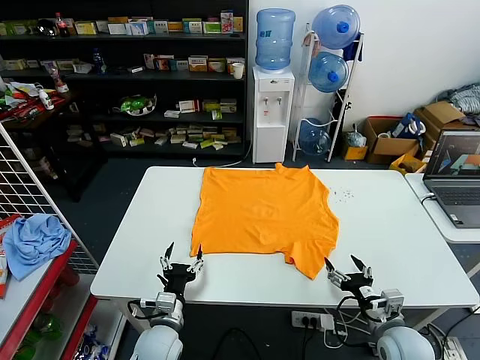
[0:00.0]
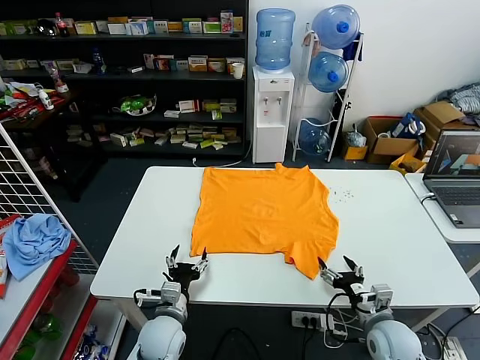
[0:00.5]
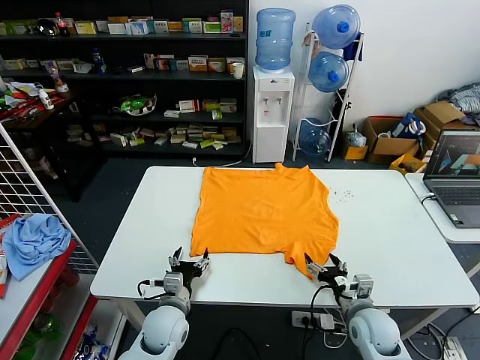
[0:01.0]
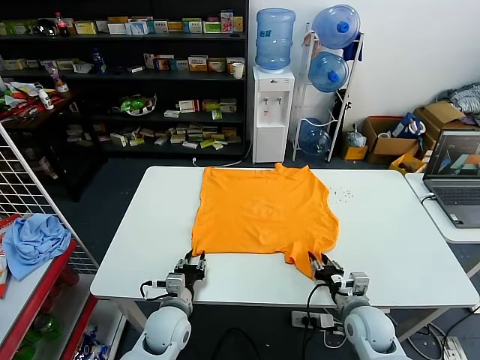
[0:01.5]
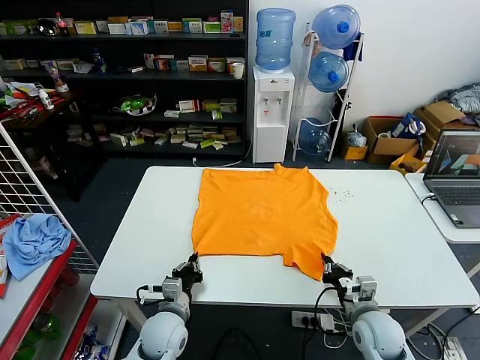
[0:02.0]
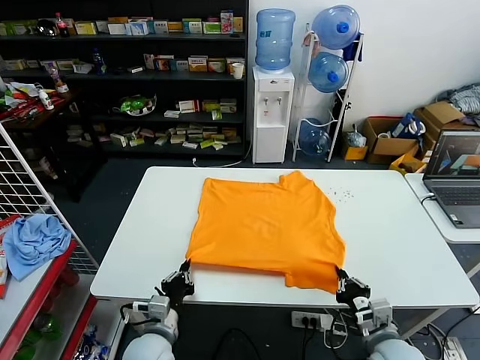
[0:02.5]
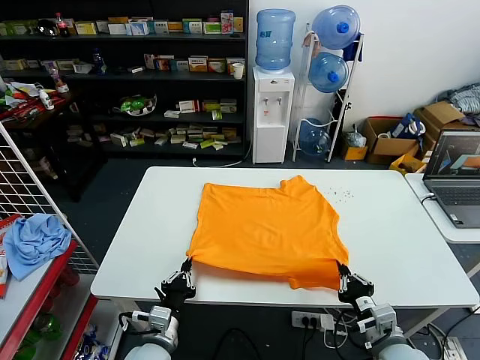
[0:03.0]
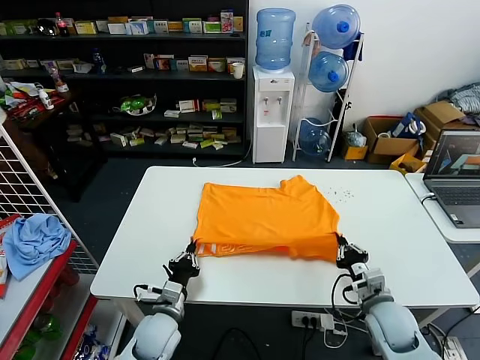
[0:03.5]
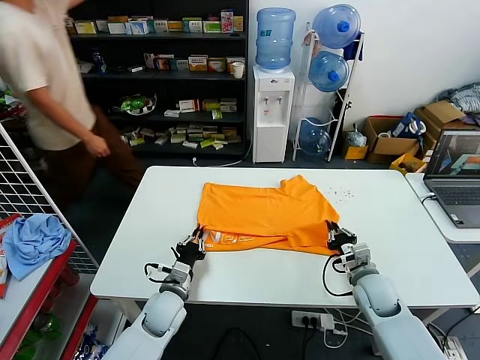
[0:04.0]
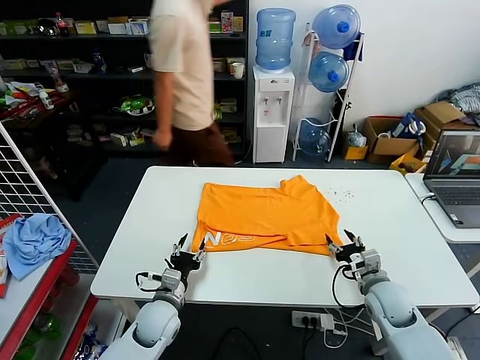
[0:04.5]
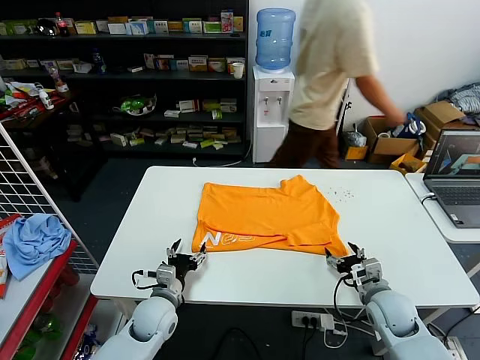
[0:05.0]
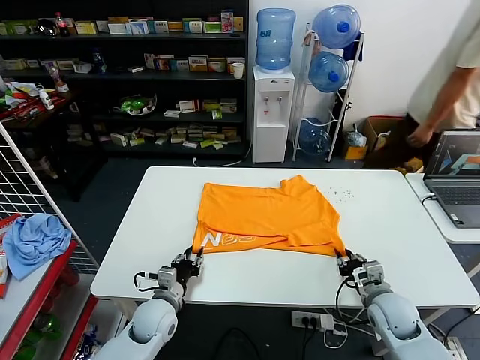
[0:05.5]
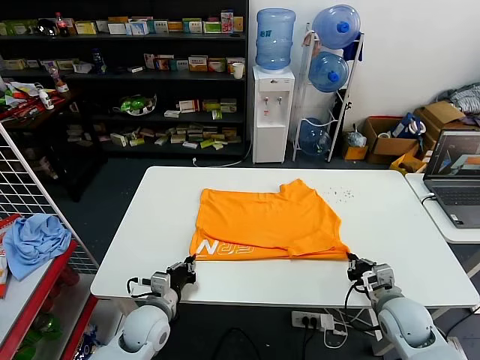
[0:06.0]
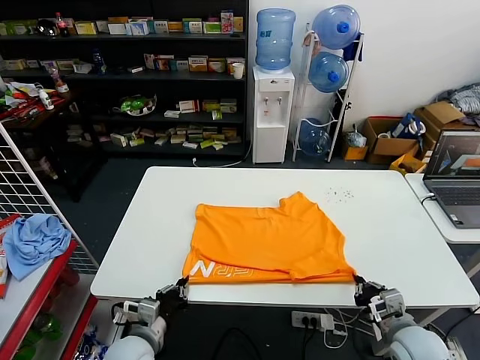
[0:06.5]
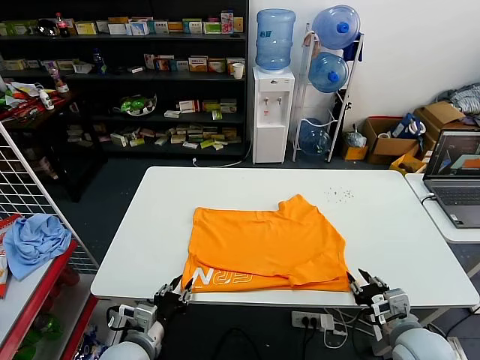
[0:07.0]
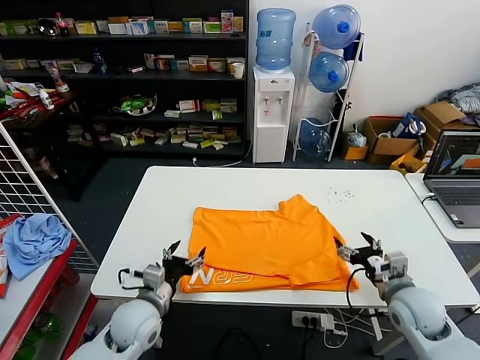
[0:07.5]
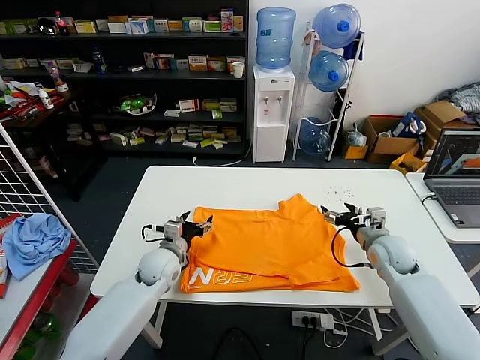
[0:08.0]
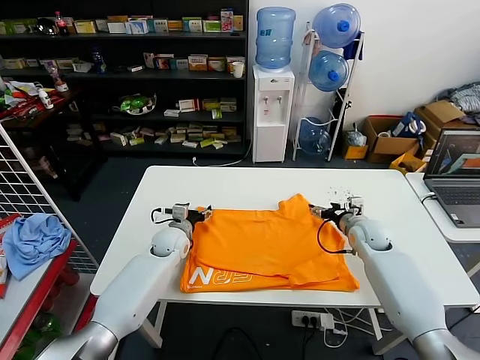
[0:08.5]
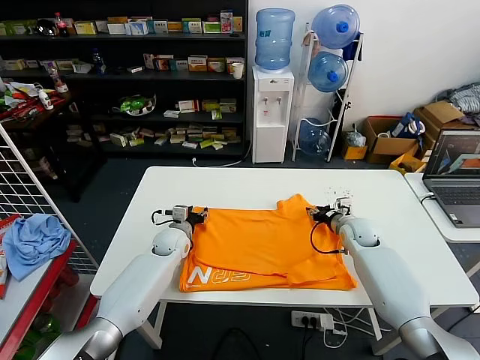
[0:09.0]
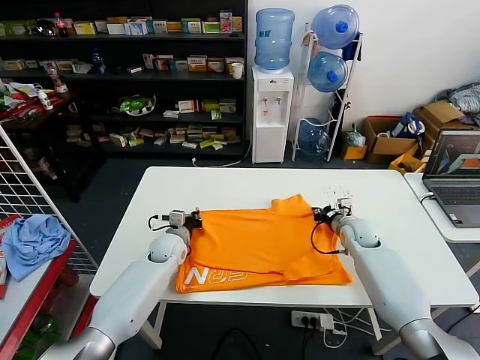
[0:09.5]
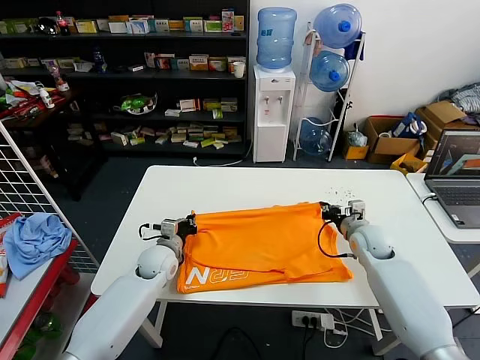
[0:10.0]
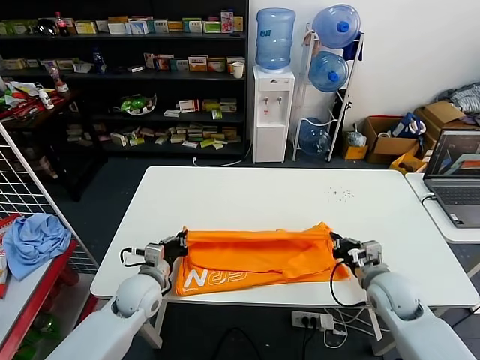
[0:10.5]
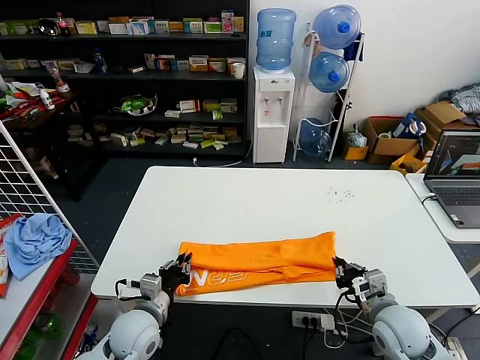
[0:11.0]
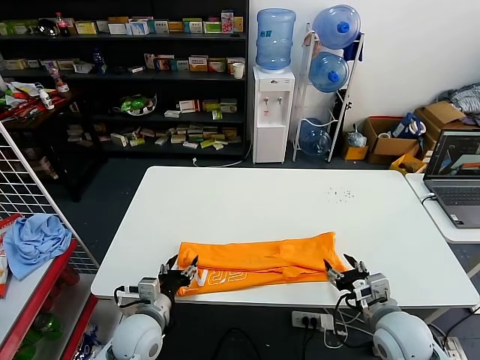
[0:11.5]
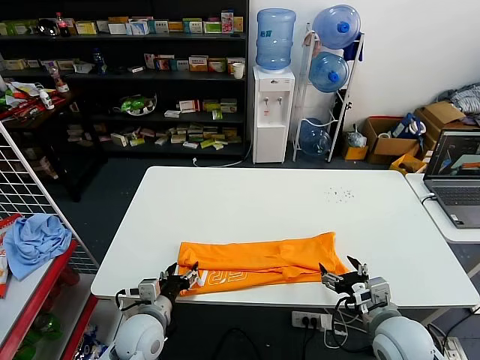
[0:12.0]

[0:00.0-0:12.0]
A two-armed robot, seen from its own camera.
Task of the whole recording: fold and organize the clothes.
Step, 0:00.0 to 0:01.5: use both grippers simultaneously to clamp the lower edge of the clothing fabric.
Step, 0:02.0 to 0:04.0: use both grippers to drag the lower edge of the fabric forward and fold it over the upper edge.
Step, 0:04.5 to 0:07.0: Drag the clothes downward with both gripper.
Step, 0:07.5 to 0:09.0: use both grippers simultaneously to clamp the upper edge of the clothing fabric.
Step, 0:10.0 to 0:11.0: use both grippers to drag the upper edge of the fabric backward and fold it over the lower edge.
0:02.0 to 0:04.0: The left gripper ends up approximately 5 cm from where it was. The right gripper heads forward, covering approximately 10 cm.
0:04.0 to 0:06.0: The right gripper shifts about 5 cm backward, and opens, then closes once more; the left gripper opens and closes again.
0:06.0 to 0:08.0: The two grippers go roughly 15 cm forward. The left gripper opens up; the right gripper opens its fingers.
0:08.0 to 0:10.0: The left gripper closes; the right gripper goes forward and returns, roughly 10 cm each way, and closes.
0:10.0 to 0:12.0: The grippers both shift backward by some 20 cm. The right gripper opens its fingers. Meanwhile the left gripper opens its fingers.

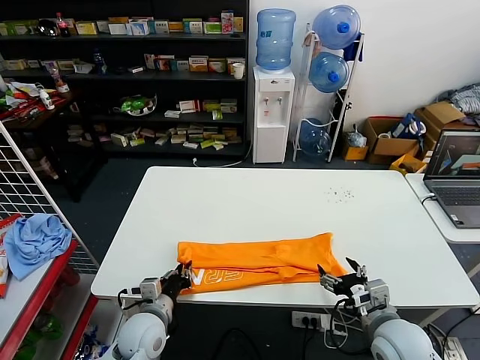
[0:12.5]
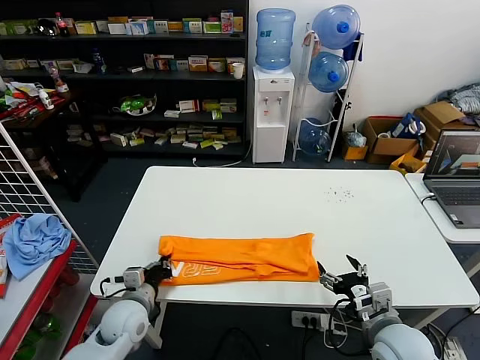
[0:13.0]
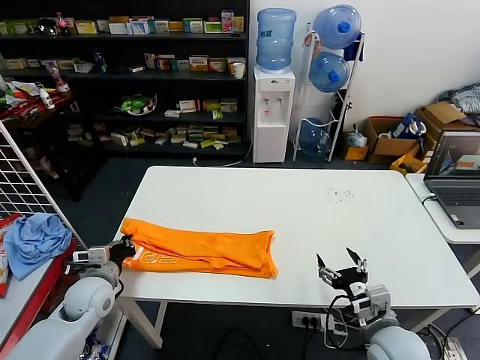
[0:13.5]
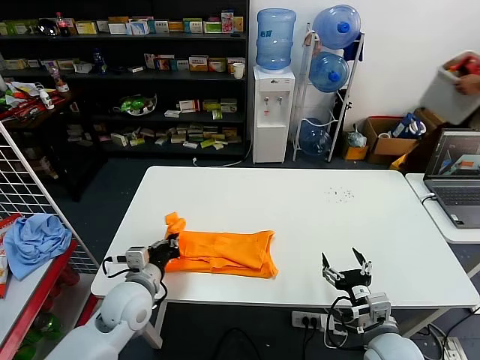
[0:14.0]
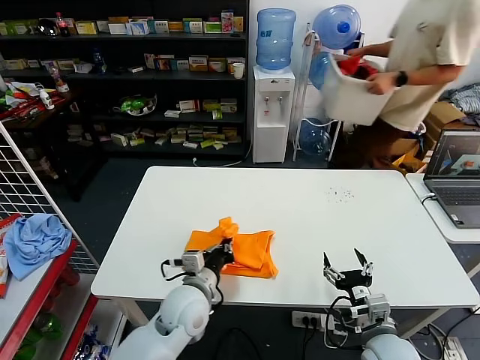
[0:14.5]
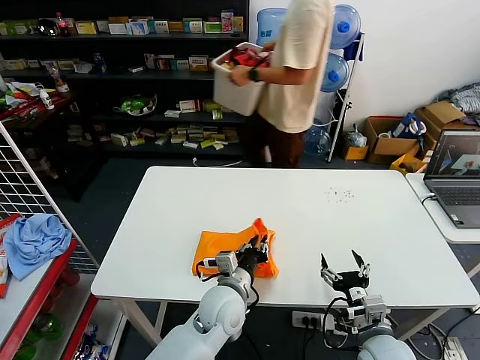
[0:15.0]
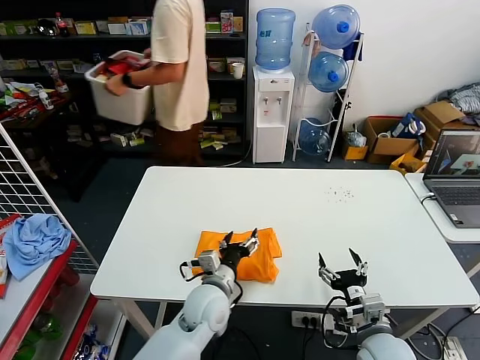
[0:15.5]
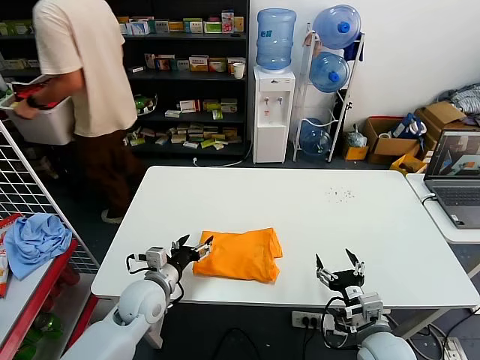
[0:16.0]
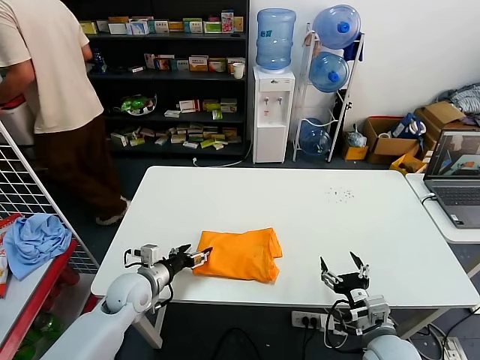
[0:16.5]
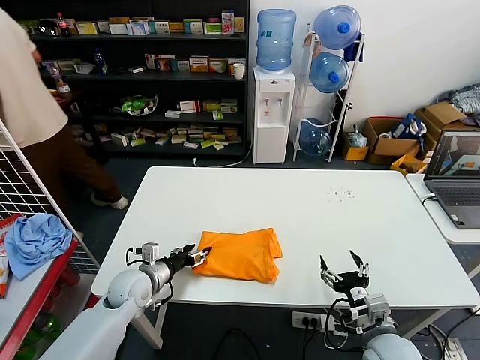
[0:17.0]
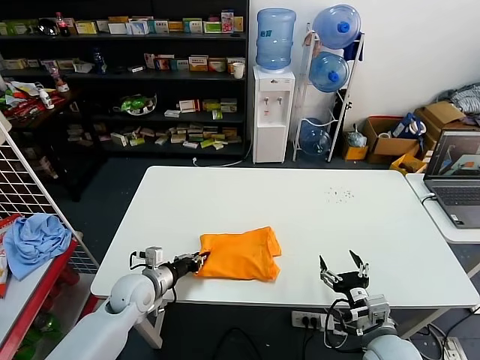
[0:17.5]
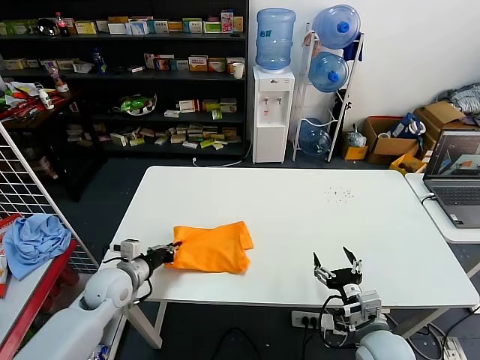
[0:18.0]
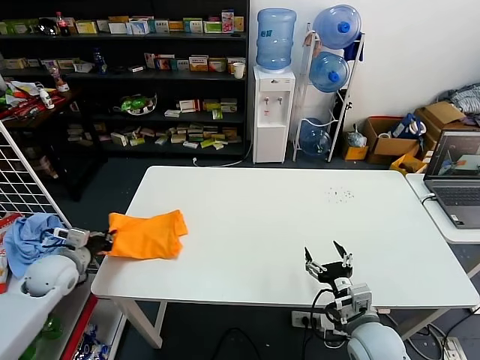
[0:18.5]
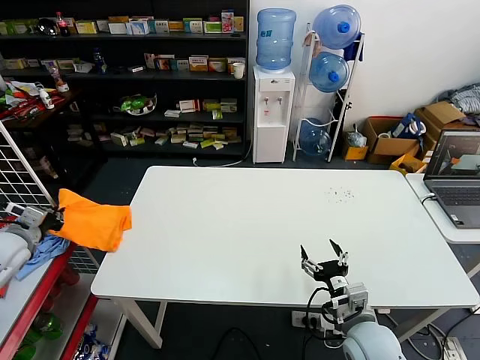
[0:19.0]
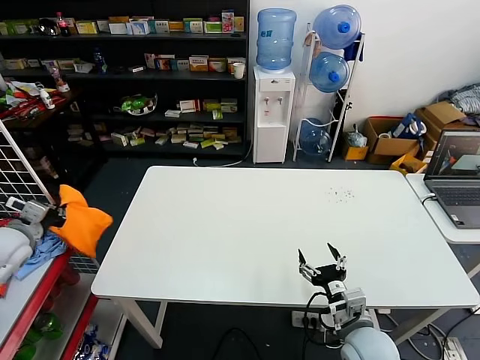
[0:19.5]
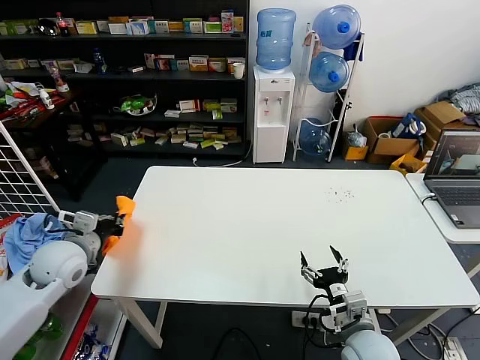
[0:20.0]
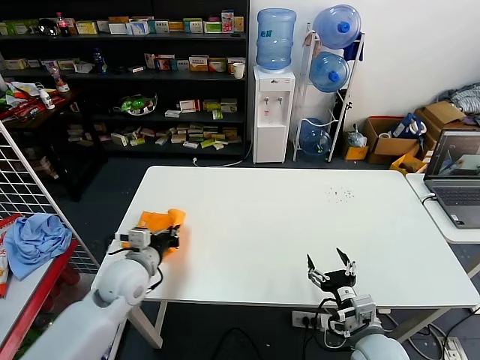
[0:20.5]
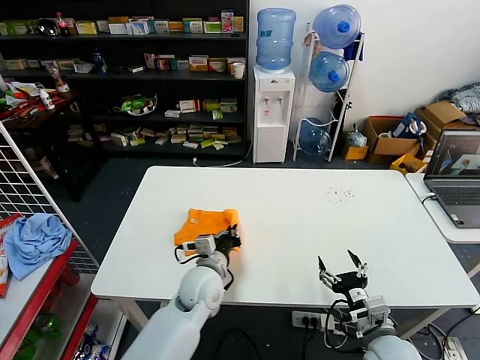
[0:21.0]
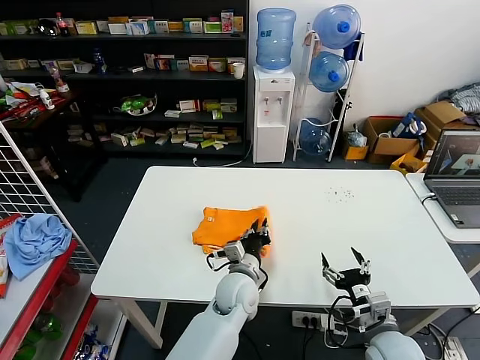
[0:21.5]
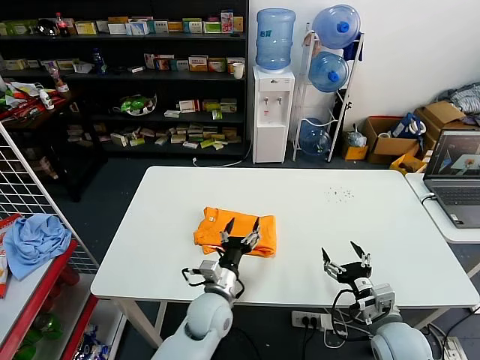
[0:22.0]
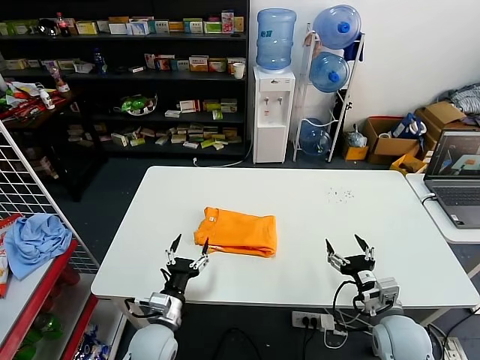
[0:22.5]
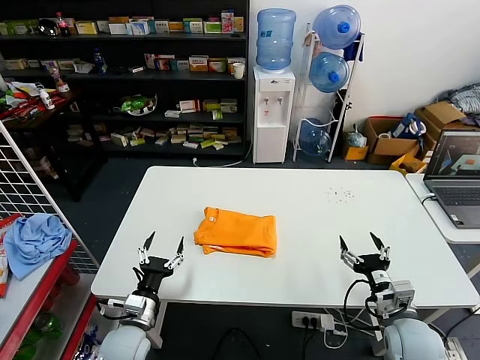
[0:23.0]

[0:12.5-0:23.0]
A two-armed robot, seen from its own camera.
Task of the whole recording: fold and organize the clothes.
Step, 0:13.0 to 0:15.0: use the left gripper to drag the left edge of the fabric to the left and folds it over the right edge.
Step, 0:15.5 to 0:21.5: Flip the folded clothes over with left gripper.
0:12.5 to 0:14.5: The left gripper is displaced to the right and upward by some 10 cm.
0:14.5 to 0:16.5: The left gripper goes some 15 cm to the left, and opens its fingers.
0:16.5 to 0:19.0: The left gripper shifts approximately 30 cm to the left and upward, and closes up.
0:19.0 to 0:21.0: The left gripper heads to the right, covering approximately 40 cm.
0:21.0 to 0:23.0: The left gripper is displaced to the left, backward and downward by approximately 20 cm, and opens up. Meanwhile the right gripper changes place by about 5 cm.

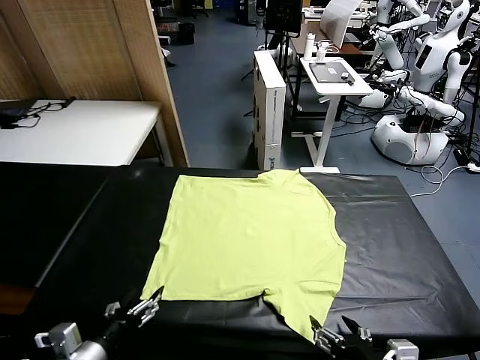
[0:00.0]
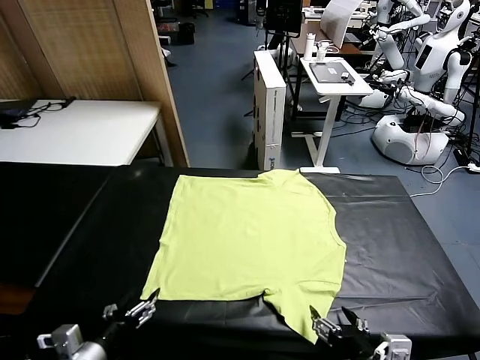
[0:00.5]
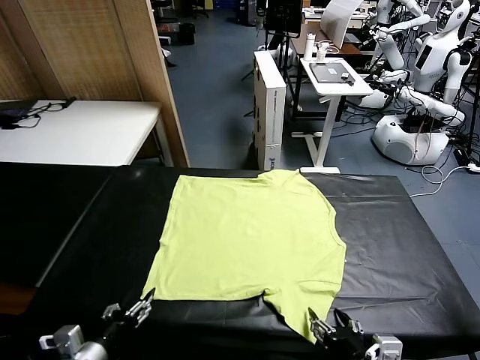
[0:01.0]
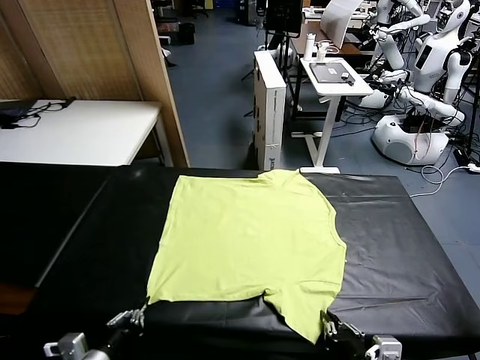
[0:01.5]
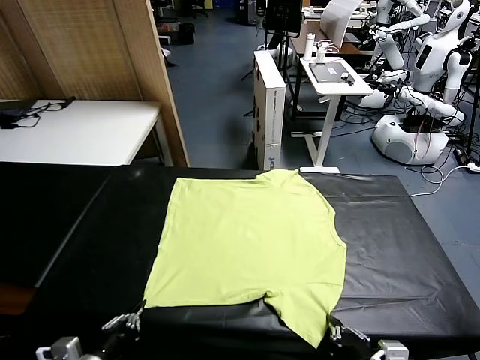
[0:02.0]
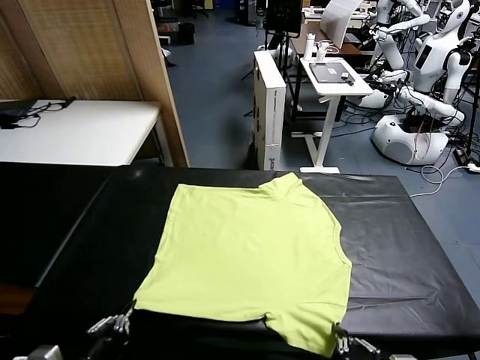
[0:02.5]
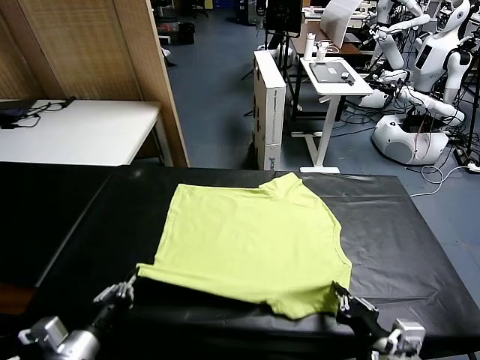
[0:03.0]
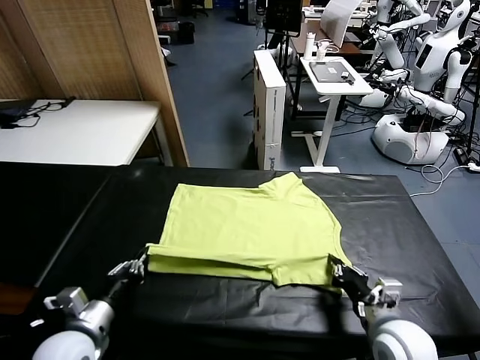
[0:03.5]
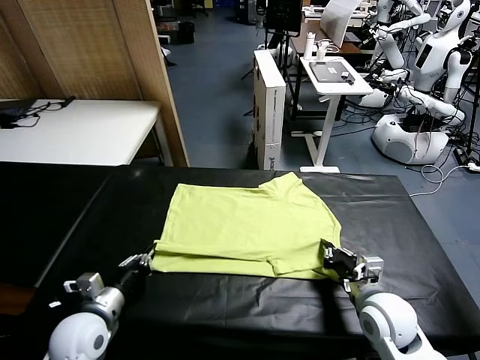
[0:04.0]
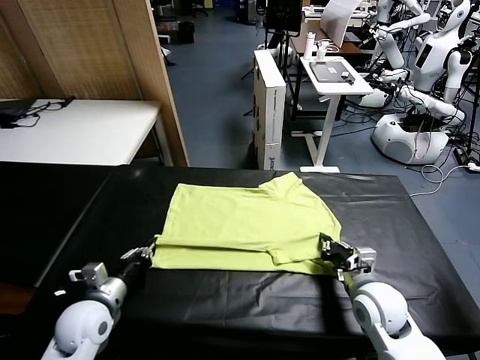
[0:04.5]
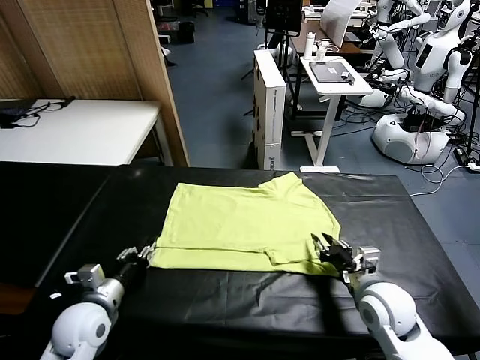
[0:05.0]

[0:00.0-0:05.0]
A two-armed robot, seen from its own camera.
Task of the whole recording: fold and organize the clothes.
Step, 0:00.0 to 0:01.5: use both grippers simultaneously to clamp the lower edge of the clothing fabric.
0:02.5 to 0:05.0: Both grippers move forward, about 15 cm. The left gripper opens. The right gripper opens up.
